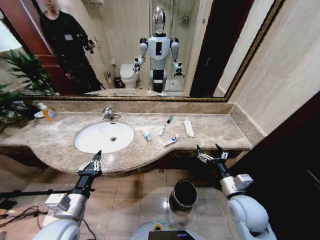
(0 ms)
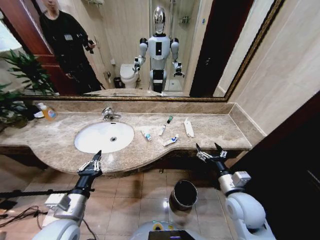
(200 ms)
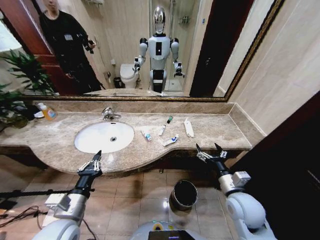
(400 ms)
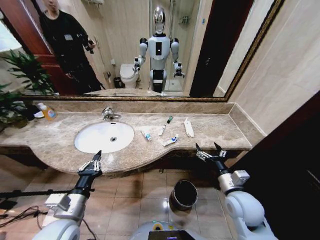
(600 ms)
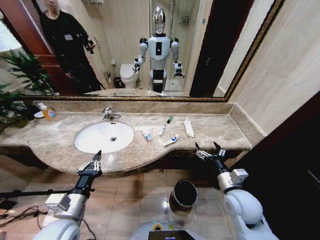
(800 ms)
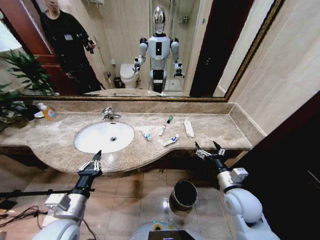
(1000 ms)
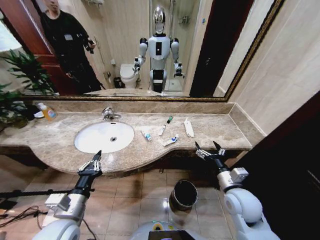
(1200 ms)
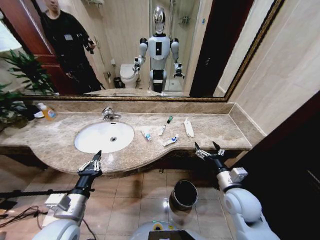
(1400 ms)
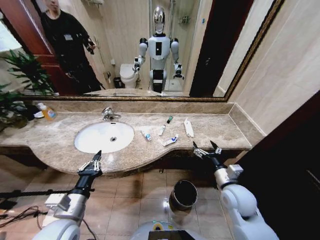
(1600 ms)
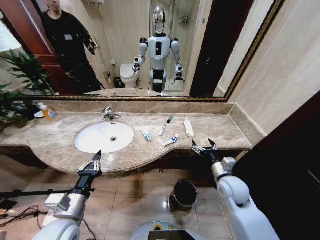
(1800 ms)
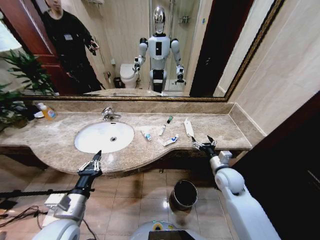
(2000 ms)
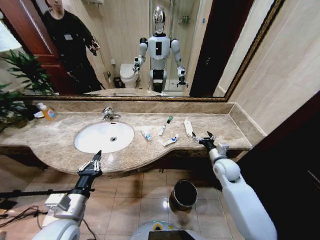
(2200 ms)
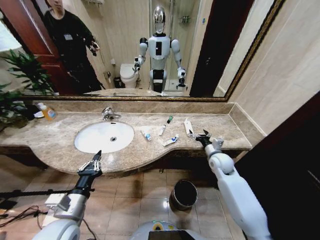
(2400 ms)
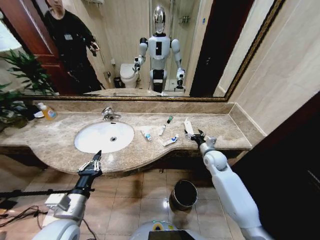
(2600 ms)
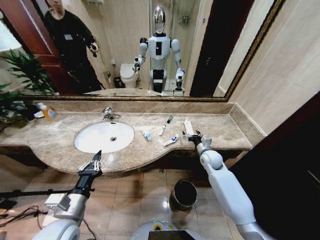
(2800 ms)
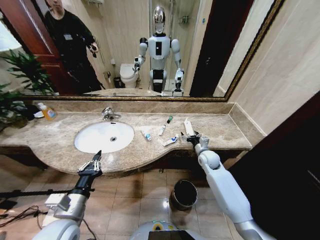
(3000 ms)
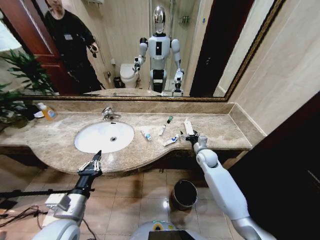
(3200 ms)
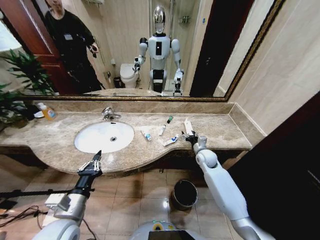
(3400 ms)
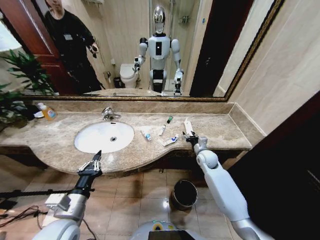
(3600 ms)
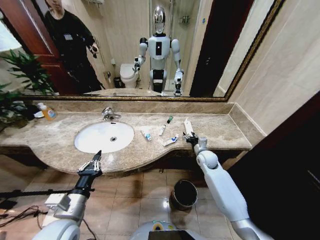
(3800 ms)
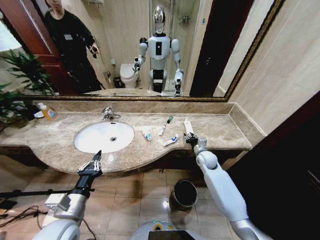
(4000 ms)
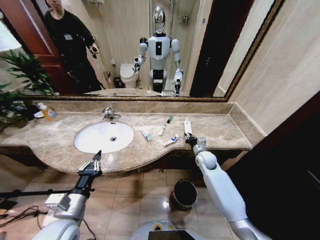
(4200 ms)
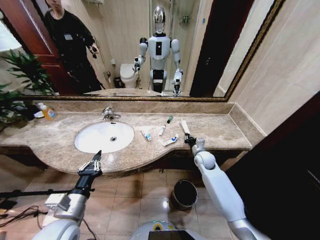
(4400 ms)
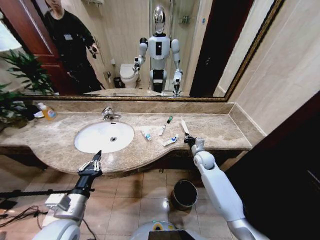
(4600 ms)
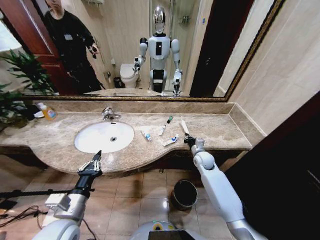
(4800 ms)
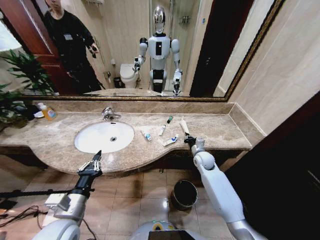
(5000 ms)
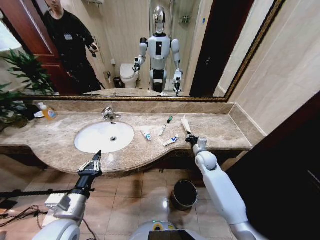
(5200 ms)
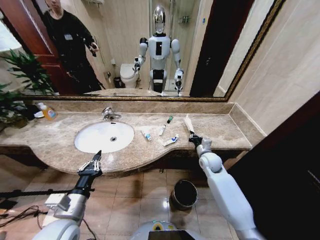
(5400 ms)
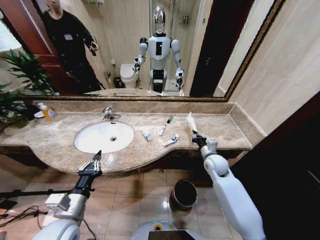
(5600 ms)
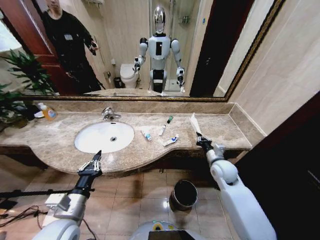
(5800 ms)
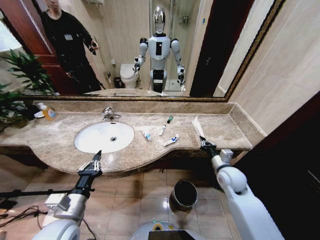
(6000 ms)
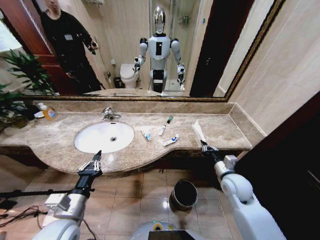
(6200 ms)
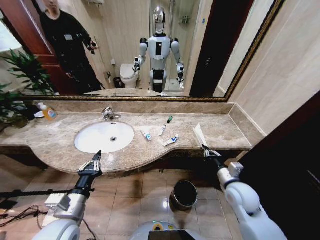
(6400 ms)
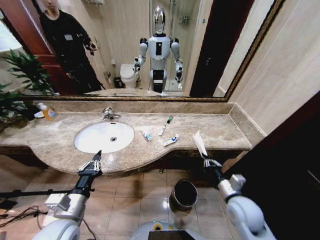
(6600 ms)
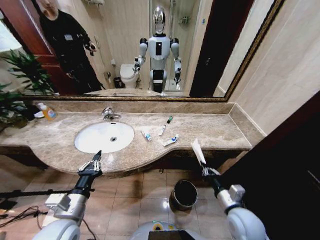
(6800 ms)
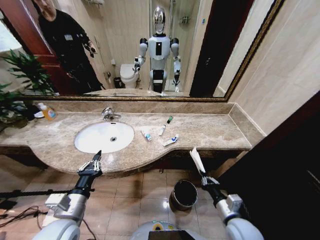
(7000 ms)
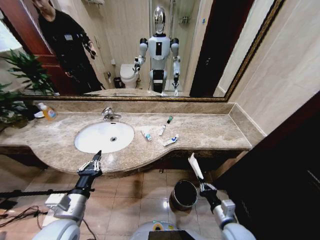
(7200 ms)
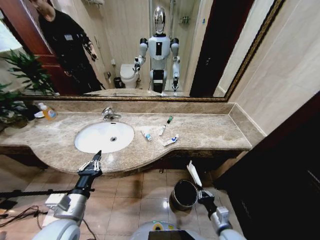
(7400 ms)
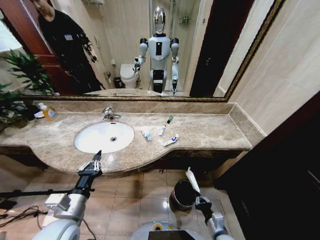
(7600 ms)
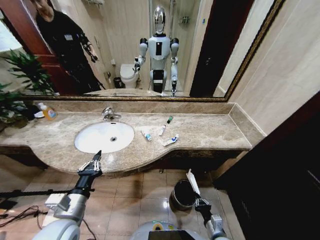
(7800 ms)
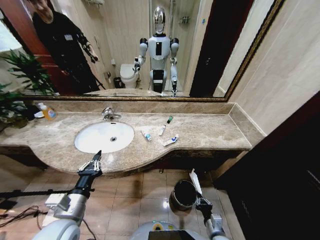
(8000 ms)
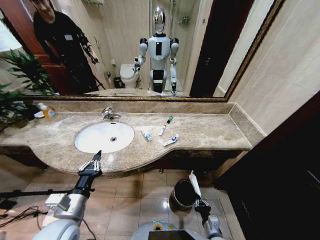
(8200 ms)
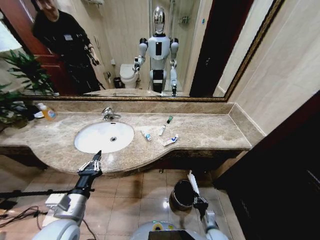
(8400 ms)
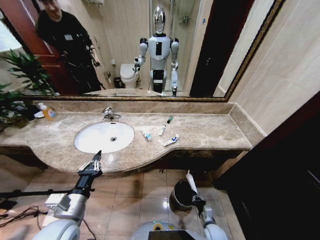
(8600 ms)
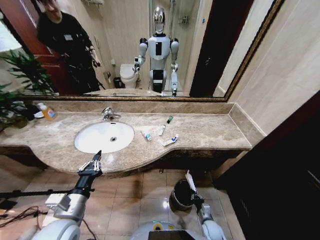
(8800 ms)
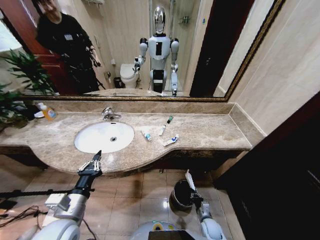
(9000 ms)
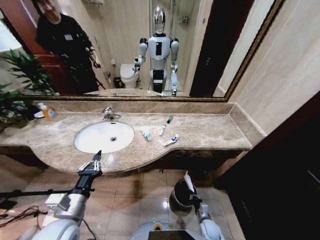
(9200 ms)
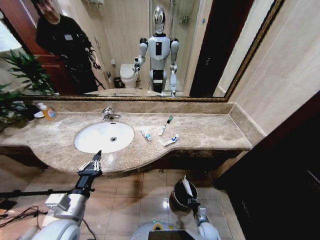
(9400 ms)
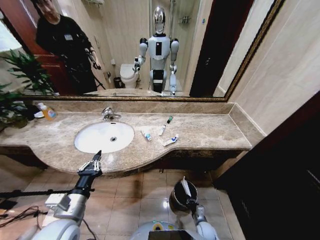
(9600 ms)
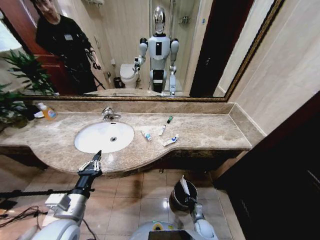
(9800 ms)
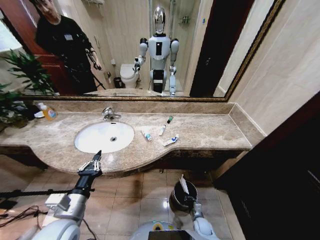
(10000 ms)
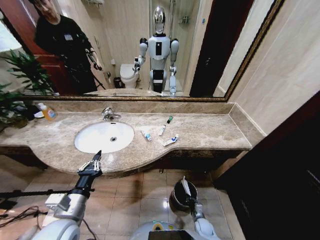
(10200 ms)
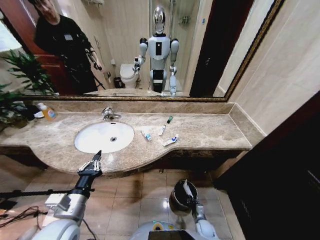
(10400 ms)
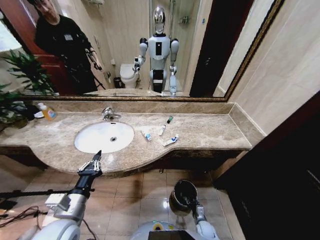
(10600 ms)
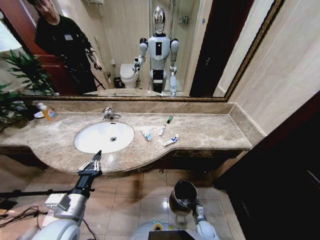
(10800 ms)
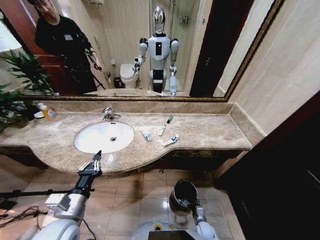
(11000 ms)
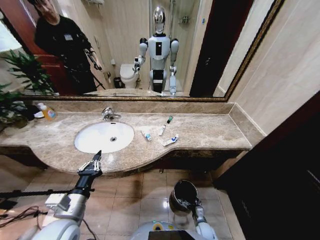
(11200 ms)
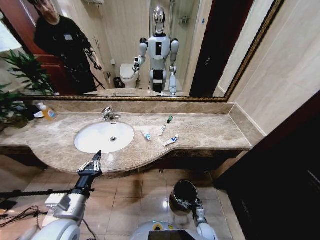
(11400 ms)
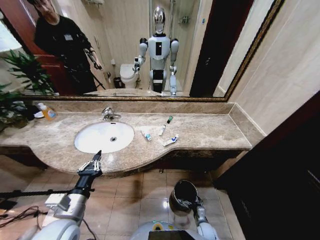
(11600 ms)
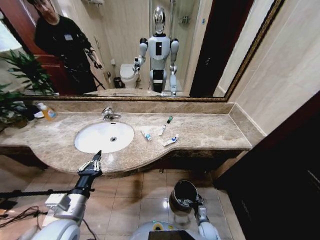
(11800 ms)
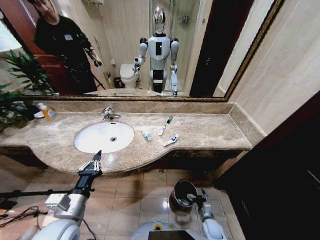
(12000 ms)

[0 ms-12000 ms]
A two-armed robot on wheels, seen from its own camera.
Task of the whole recording: Pick up the trash from the sink and place it in the trash bin.
1600 ms to 3000 ms: The right gripper goes roughly 20 cm forward.
3000 ms to 4400 ms: The right gripper closes.
4400 ms to 6000 ms: The right gripper travels backward and upward by approximately 15 cm.
6000 ms to 7600 ms: The right gripper moves backward and downward, about 30 cm.
7600 ms to 9000 ms: The right gripper heads downward and forward, covering roughly 15 cm.
9000 ms to 10400 ms: The right gripper moves downward, about 5 cm.
10400 ms to 12000 ms: The right gripper shifts by some 5 cm, and opens.

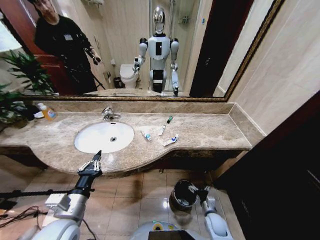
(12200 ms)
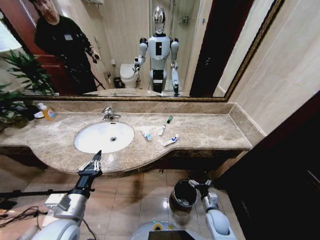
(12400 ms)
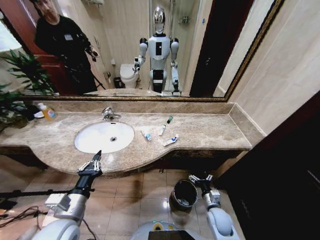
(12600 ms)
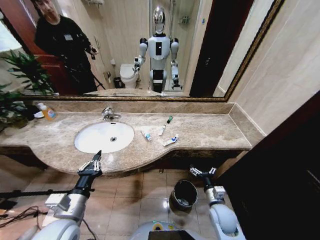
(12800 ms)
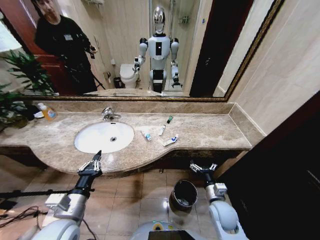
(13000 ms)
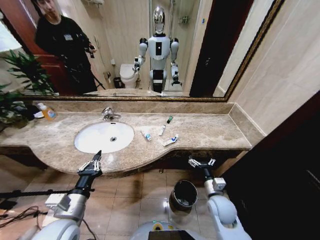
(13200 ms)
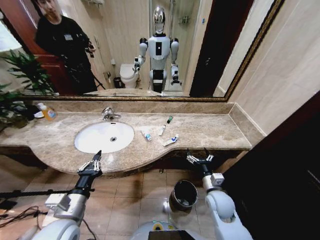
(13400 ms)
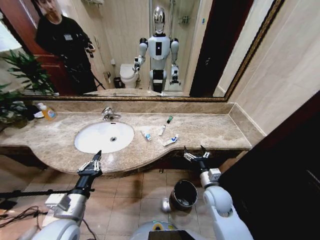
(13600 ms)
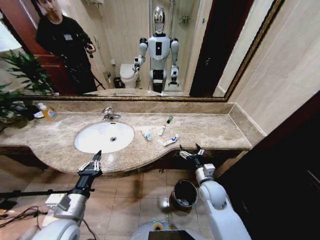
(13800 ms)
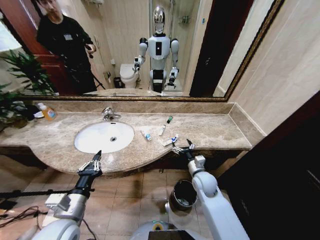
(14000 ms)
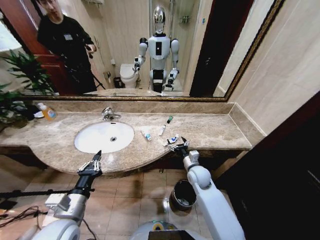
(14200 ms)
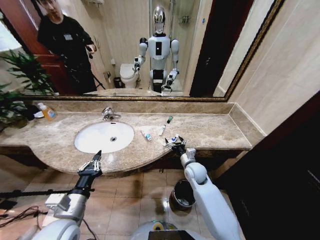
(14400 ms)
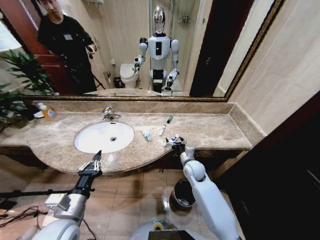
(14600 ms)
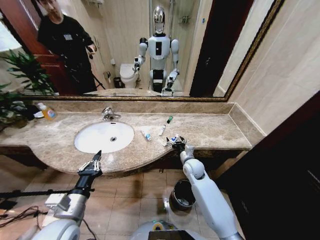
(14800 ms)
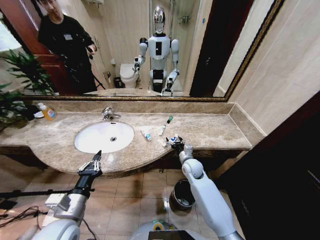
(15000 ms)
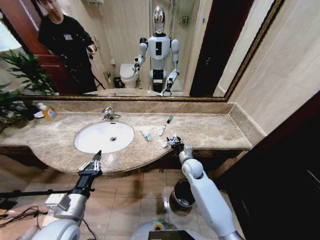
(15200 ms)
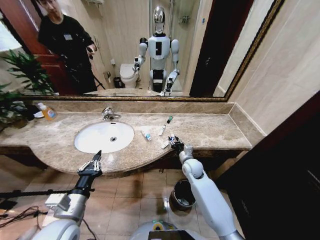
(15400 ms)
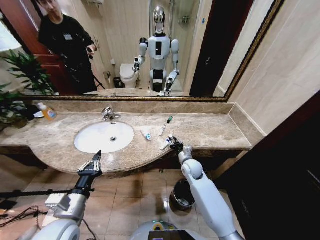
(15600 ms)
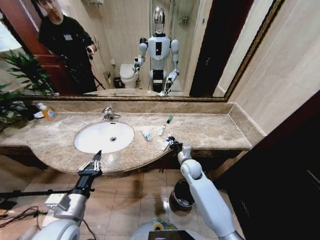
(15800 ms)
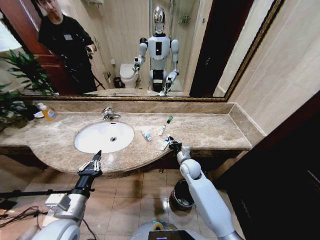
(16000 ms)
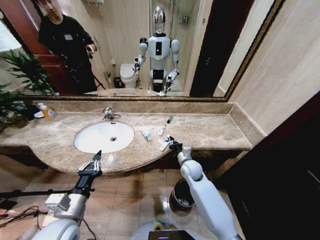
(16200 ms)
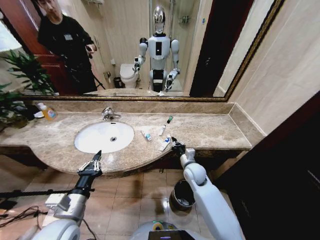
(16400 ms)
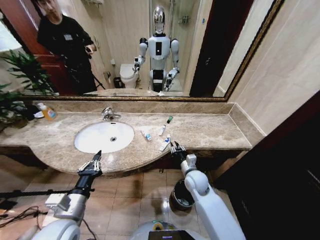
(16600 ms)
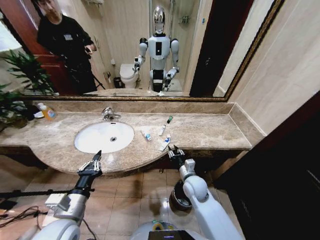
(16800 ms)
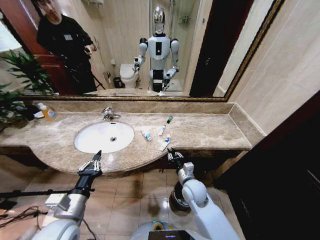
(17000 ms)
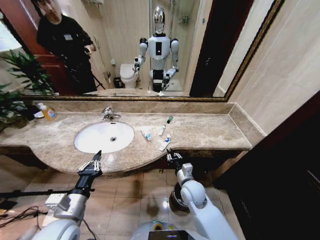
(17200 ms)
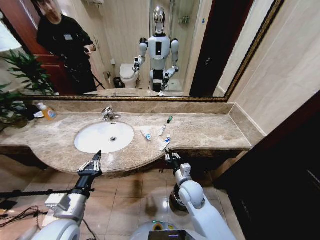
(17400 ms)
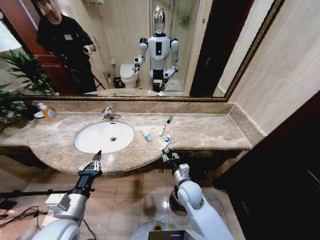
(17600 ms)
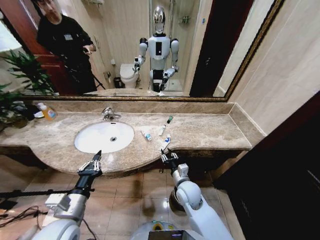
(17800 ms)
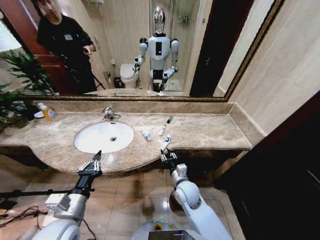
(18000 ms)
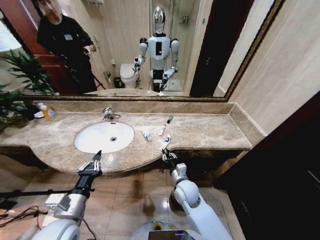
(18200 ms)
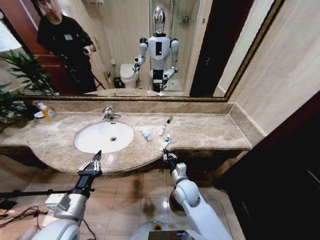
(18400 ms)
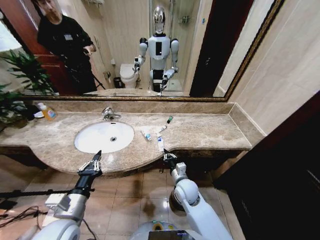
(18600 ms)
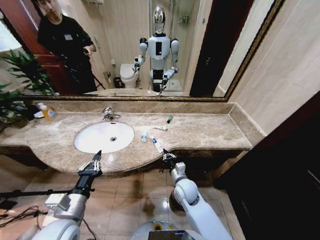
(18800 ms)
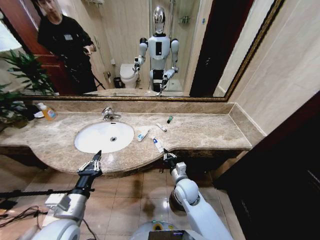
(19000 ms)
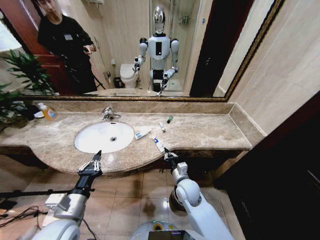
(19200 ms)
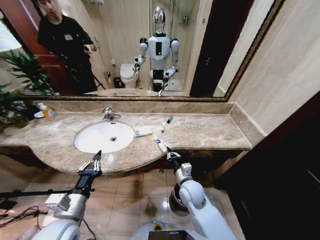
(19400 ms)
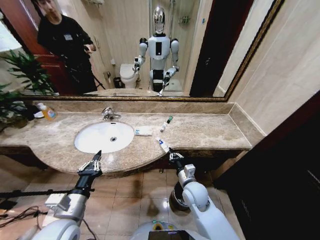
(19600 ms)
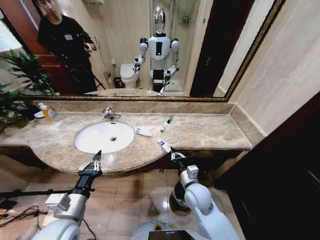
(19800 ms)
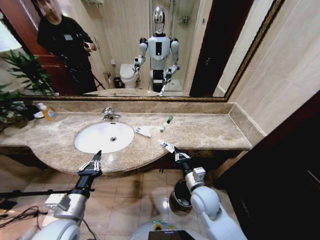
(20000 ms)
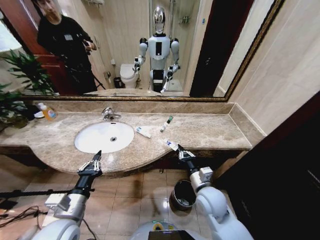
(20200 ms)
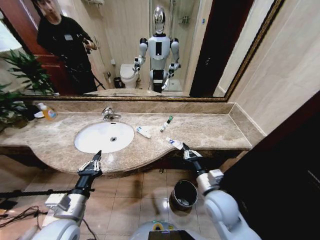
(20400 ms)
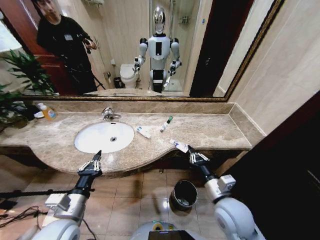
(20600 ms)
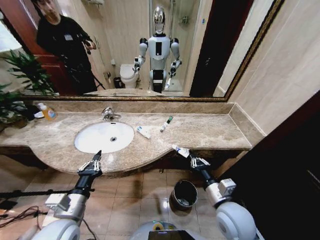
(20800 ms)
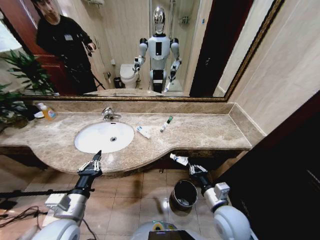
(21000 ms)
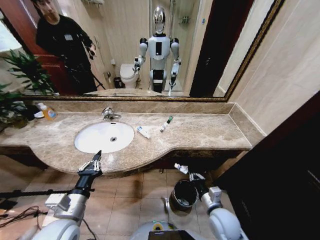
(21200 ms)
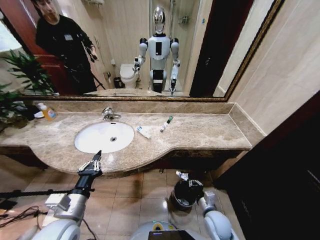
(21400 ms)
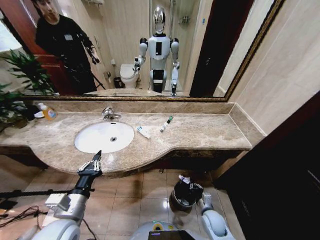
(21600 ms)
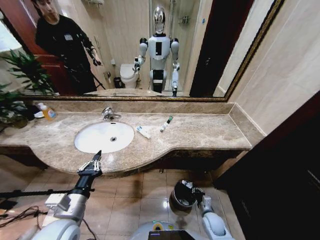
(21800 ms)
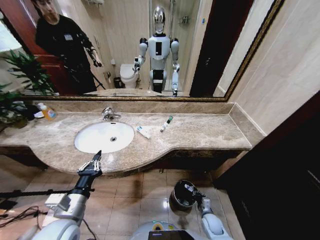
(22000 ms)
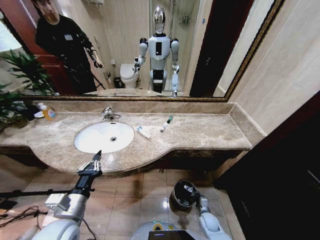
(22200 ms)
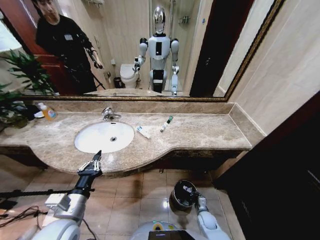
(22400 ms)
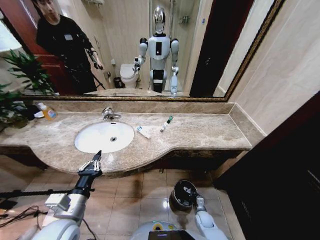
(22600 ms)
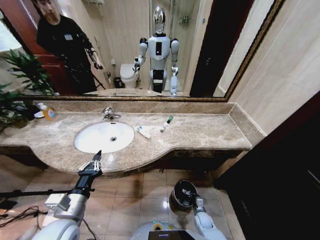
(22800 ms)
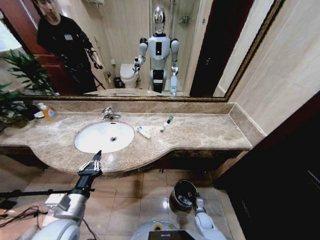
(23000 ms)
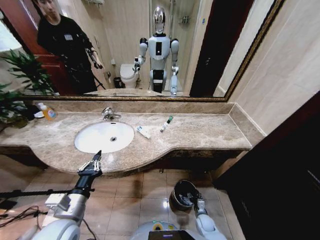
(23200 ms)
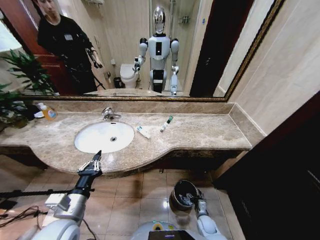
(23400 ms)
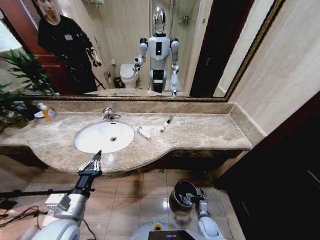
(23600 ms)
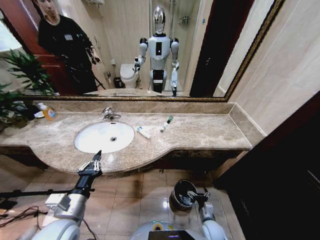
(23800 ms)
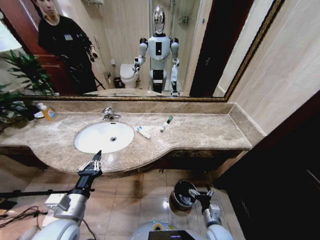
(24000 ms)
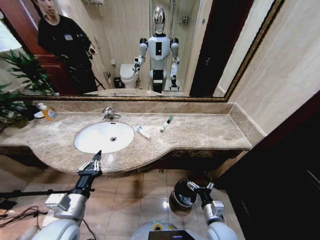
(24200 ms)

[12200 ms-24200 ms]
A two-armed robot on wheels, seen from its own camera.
Task of the whole recording: Pick up the trash from the sink and place it in the trash bin.
12200 ms to 13800 ms: The right gripper moves upward and forward, some 25 cm.
13800 ms to 15200 ms: The right gripper heads forward, covering about 10 cm.
15200 ms to 16600 ms: The right gripper is displaced backward by approximately 5 cm, and closes its fingers.
16600 ms to 18200 ms: The right gripper heads to the left, covering about 5 cm.
18200 ms to 19800 ms: The grippers move only a little.
19800 ms to 21200 ms: The right gripper heads to the right and backward, covering about 10 cm.
21200 ms to 22600 ms: The right gripper is displaced downward by approximately 25 cm.
22600 ms to 24200 ms: The right gripper goes roughly 20 cm upward, and opens up.
